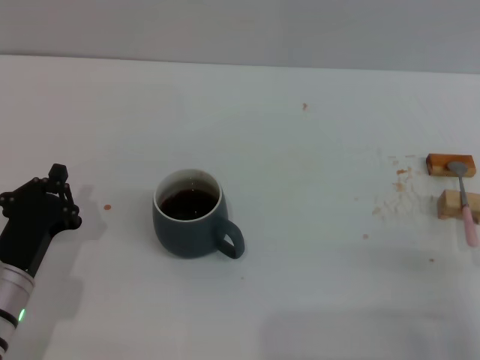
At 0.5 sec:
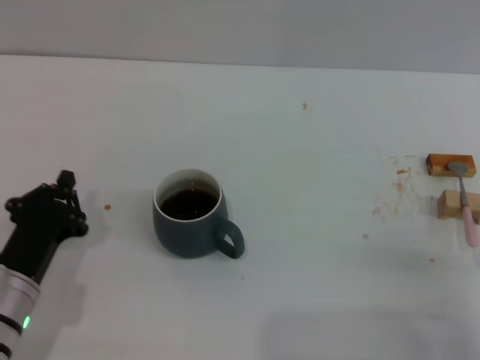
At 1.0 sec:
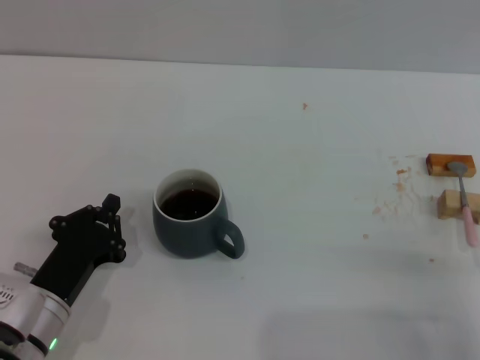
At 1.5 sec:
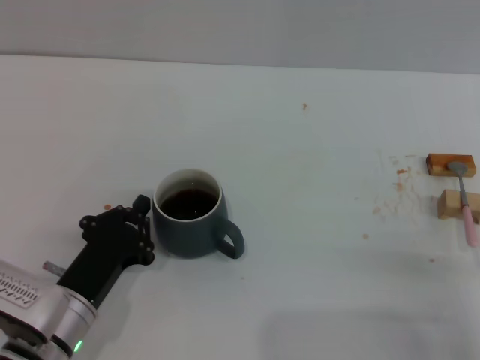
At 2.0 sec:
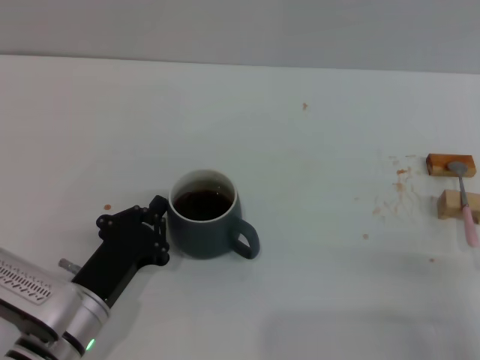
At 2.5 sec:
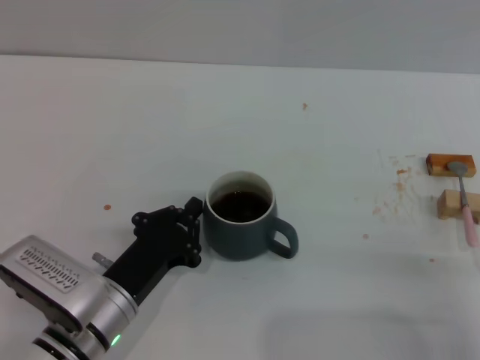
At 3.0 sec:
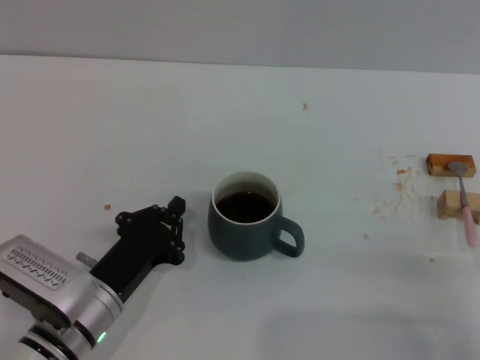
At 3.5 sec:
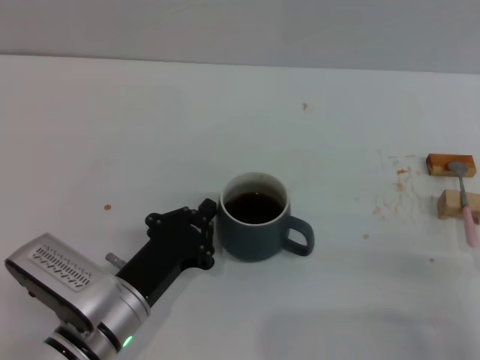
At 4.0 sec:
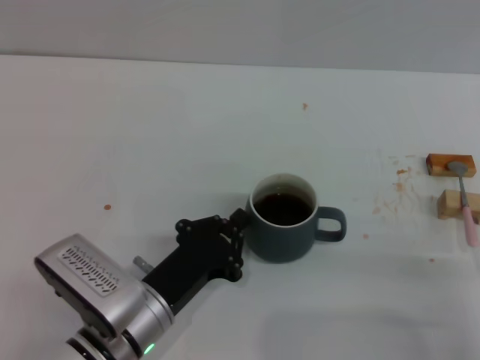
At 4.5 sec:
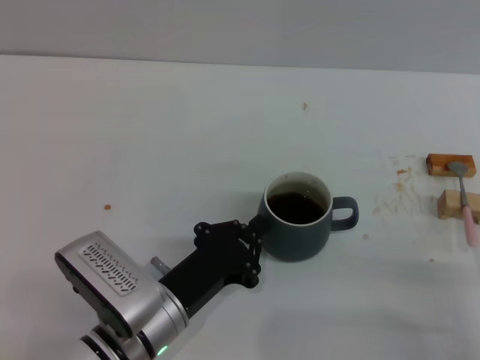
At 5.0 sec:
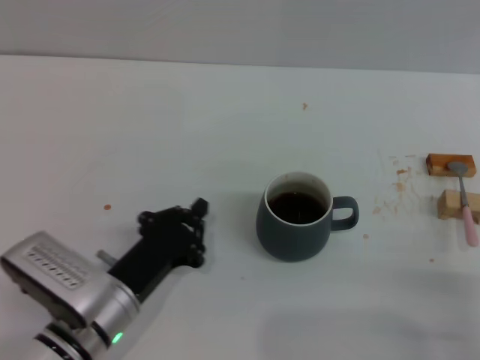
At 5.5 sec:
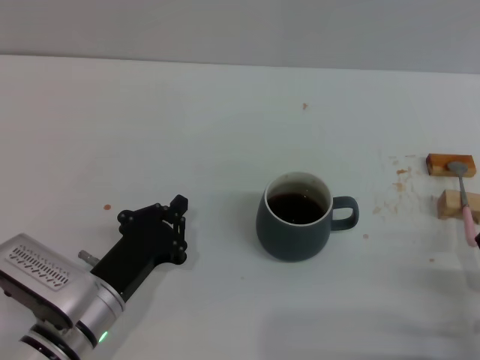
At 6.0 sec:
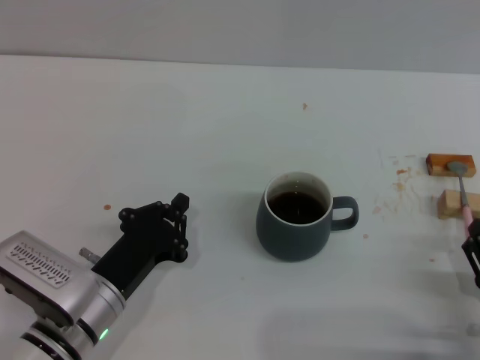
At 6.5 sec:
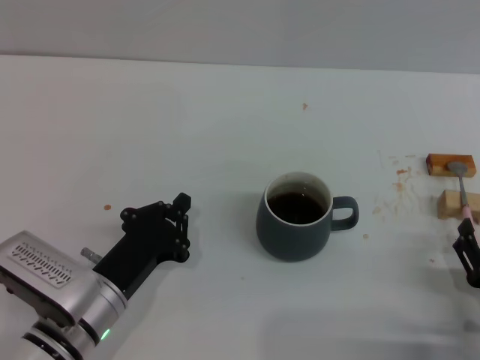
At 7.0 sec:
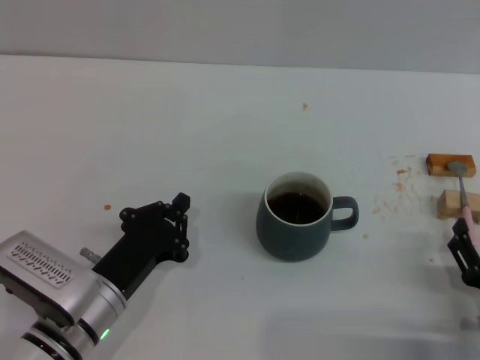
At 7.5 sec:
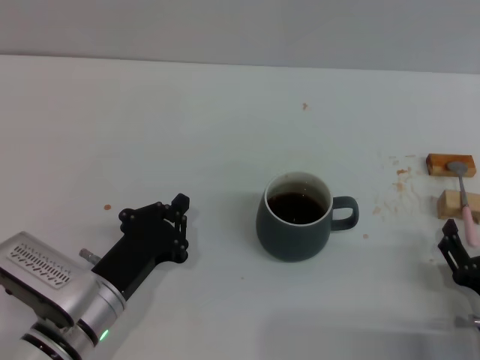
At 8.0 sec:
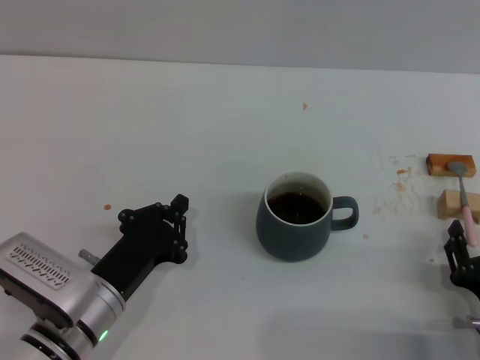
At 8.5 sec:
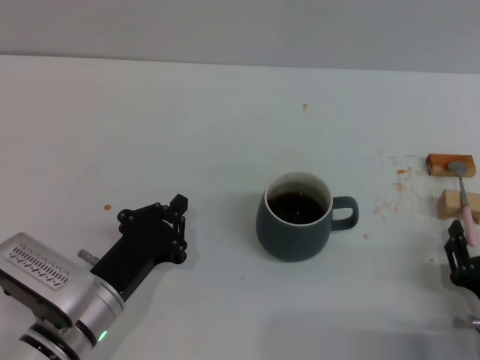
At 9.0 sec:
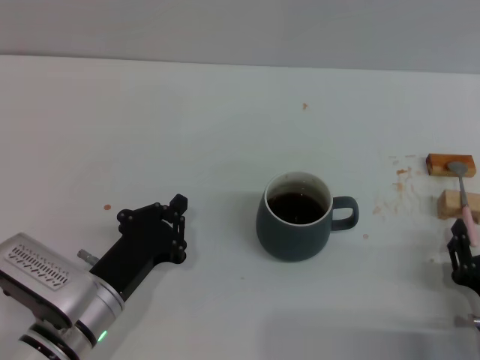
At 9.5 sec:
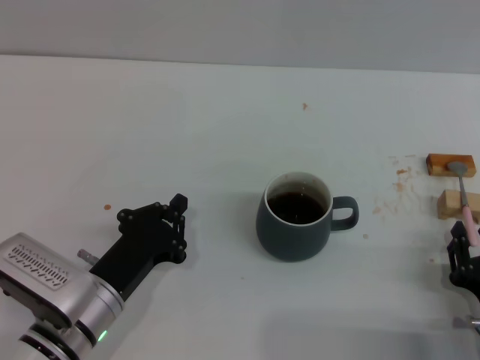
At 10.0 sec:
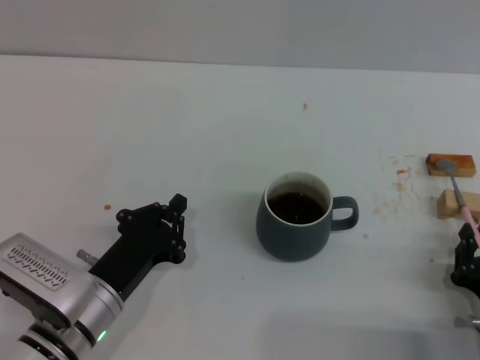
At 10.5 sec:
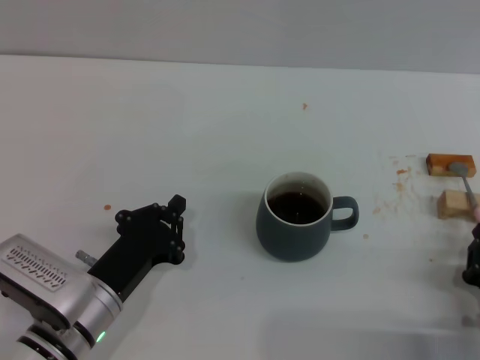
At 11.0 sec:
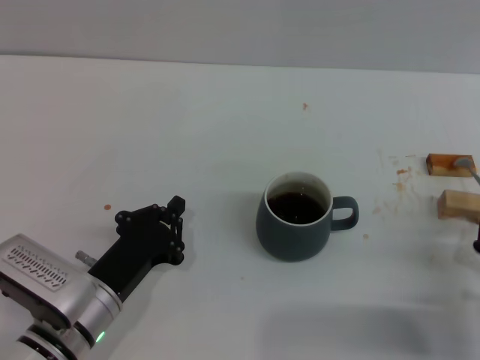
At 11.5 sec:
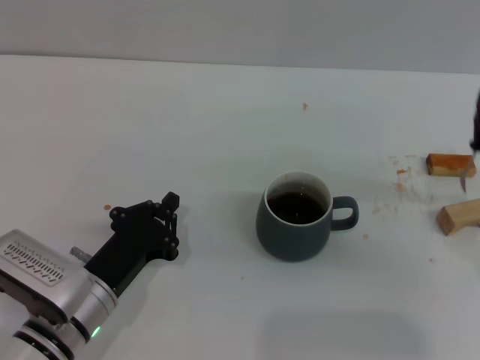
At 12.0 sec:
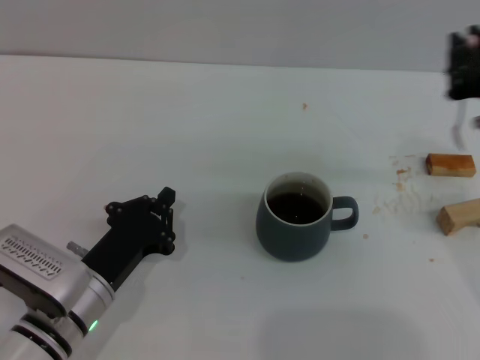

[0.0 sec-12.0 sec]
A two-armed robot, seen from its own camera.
Task of the whole recording: Move the grey cup to the center, lift the pink spoon, stir it three times in the cup, and put the spoon into the cup.
Step, 0.0 sec to 5.0 sec: Move the cup with coffee to the center of view with the left gripper.
Step, 5.5 sec to 11.0 sec: Pick up the spoon with the right gripper.
0.0 sec to 2.0 sec: The left gripper shifts approximately 5 cm to the right.
2.0 sec to 4.0 sec: The left gripper goes about 5 cm to the right.
6.0 sec to 8.0 sec: The grippers move only a little.
8.0 sec to 10.0 sec: The right gripper closes its fingers.
10.0 sec to 12.0 sec: The right gripper heads upward, covering about 25 cm.

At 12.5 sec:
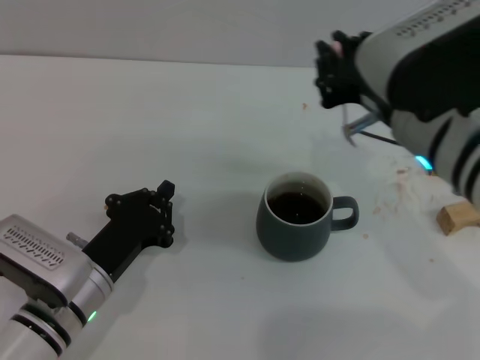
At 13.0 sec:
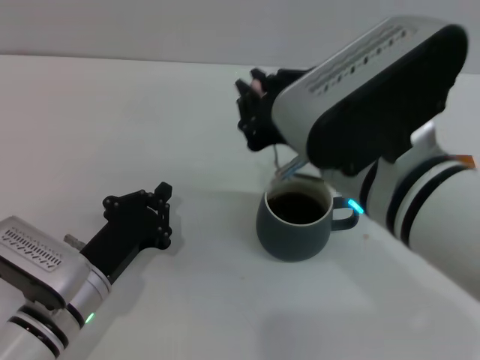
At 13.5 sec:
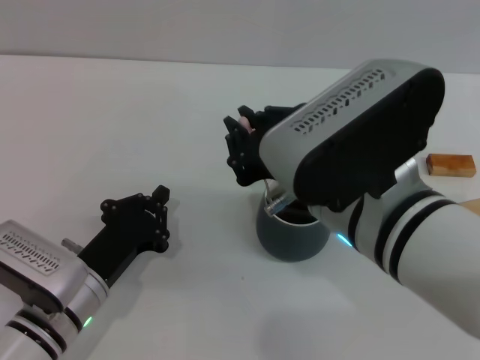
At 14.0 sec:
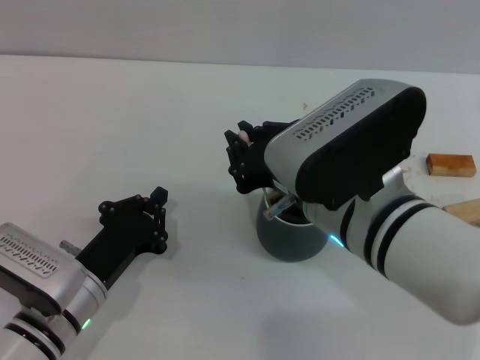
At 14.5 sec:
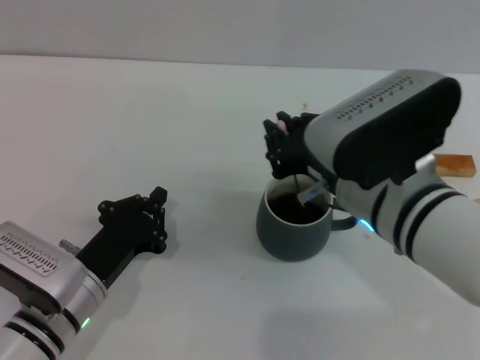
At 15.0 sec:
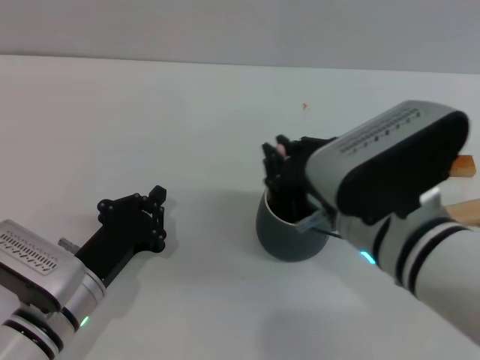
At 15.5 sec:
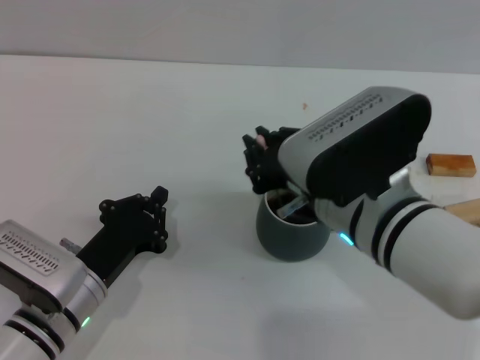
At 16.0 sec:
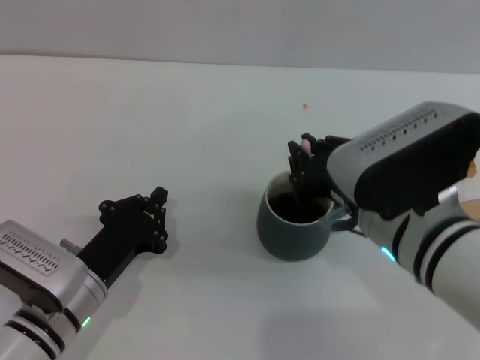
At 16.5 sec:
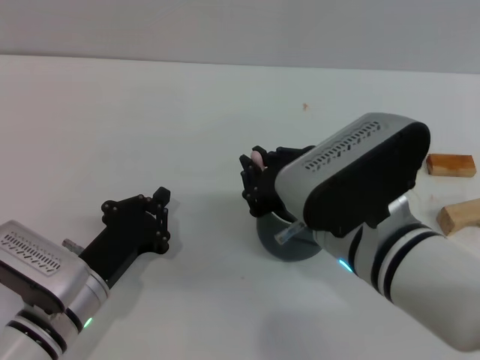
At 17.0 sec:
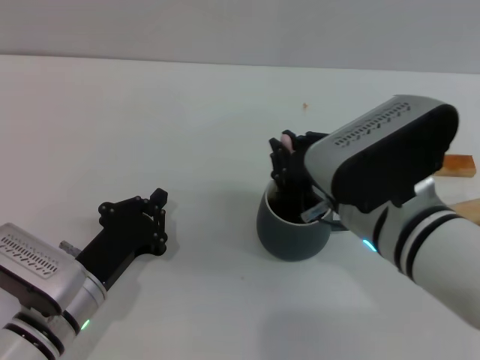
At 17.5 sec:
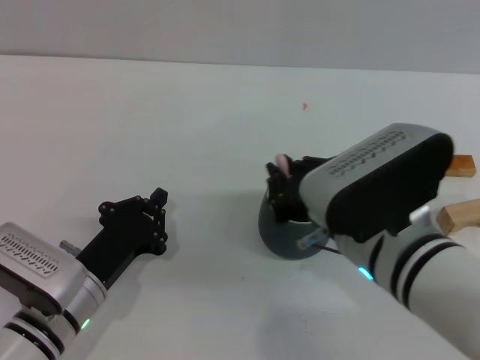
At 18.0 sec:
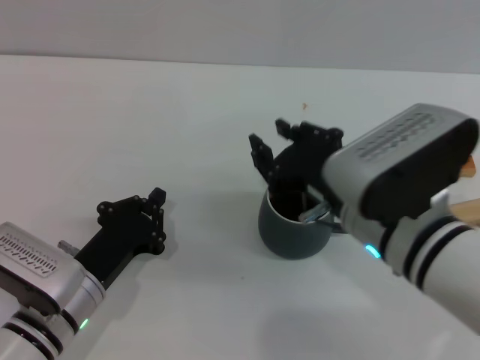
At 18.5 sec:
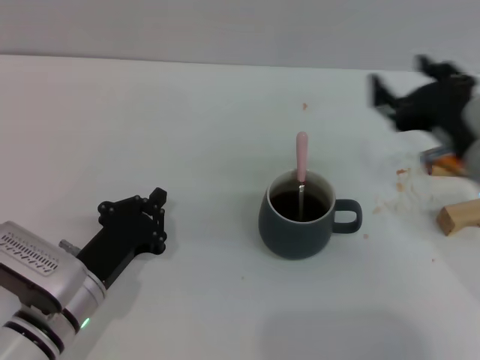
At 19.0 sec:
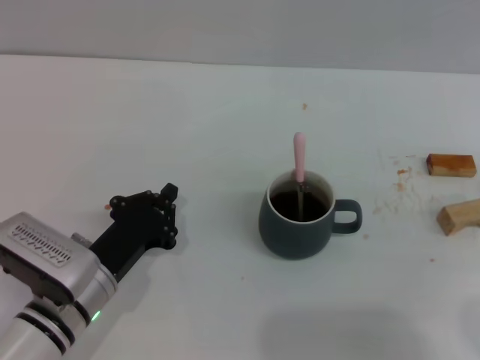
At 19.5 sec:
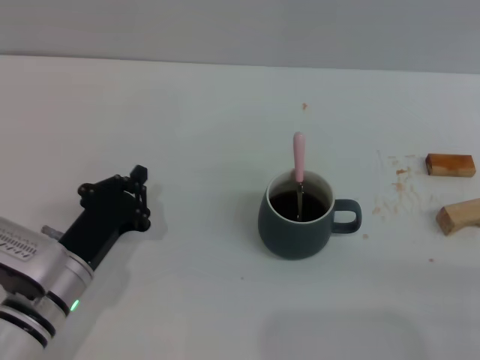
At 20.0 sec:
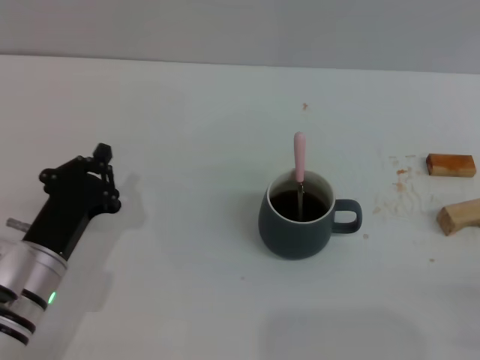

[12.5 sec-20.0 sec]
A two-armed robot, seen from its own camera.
Task of the whole recording: Move the grey cup to the center, lift the pink spoon, stir it three times in the cup, and put the spoon into the cup.
Step, 12.5 sec to 18.0 sec: Stir the coffee in the cup with the right gripper.
12.5 sec to 14.5 sec: The right gripper shifts about 5 cm downward.
16.5 sec to 18.0 sec: The grippers stay close to where they were, moving slightly.
18.0 sec to 20.0 sec: The right gripper moves to the right, backward and downward, some 25 cm, and opens its fingers.

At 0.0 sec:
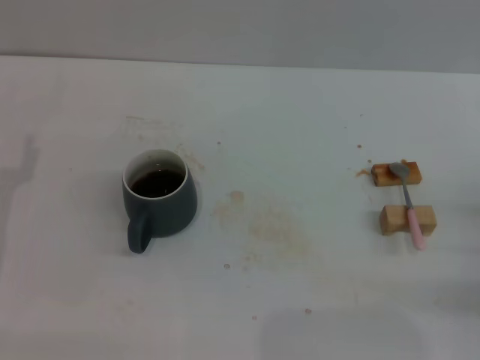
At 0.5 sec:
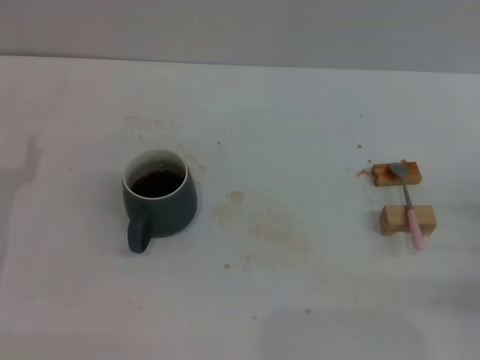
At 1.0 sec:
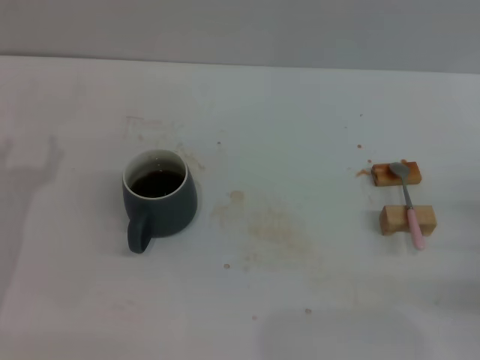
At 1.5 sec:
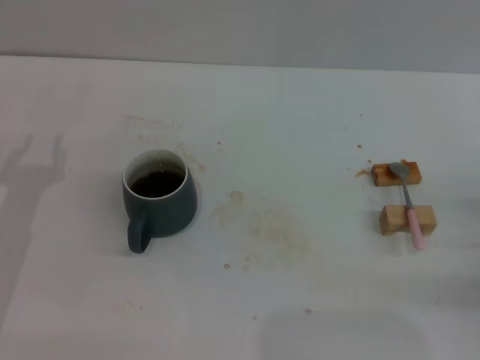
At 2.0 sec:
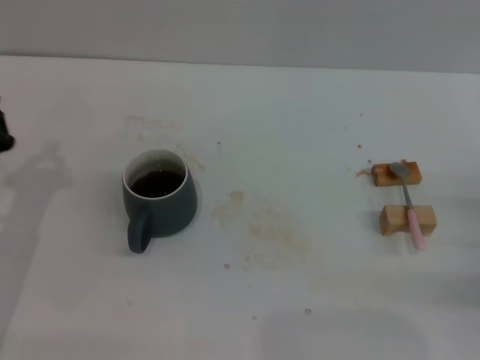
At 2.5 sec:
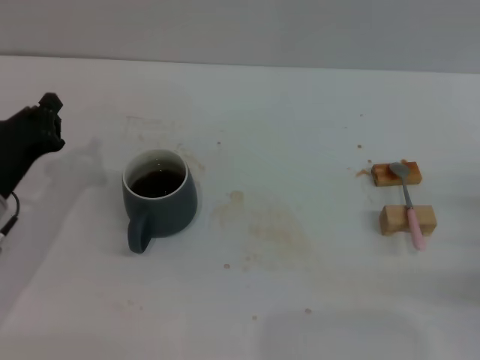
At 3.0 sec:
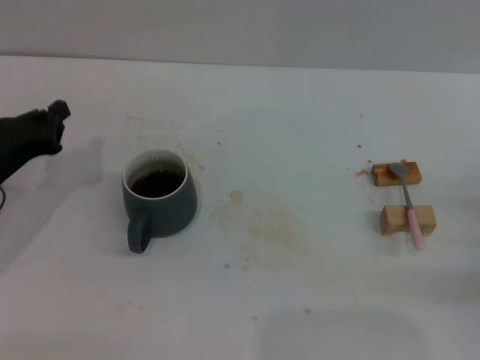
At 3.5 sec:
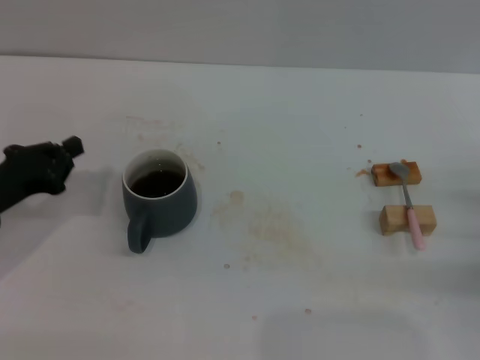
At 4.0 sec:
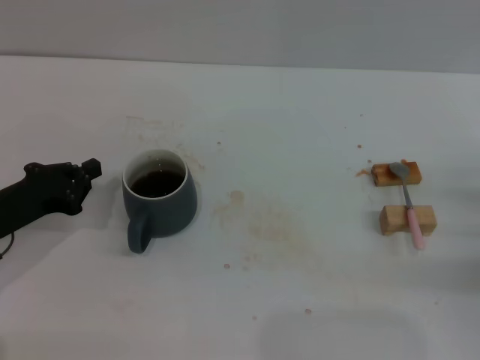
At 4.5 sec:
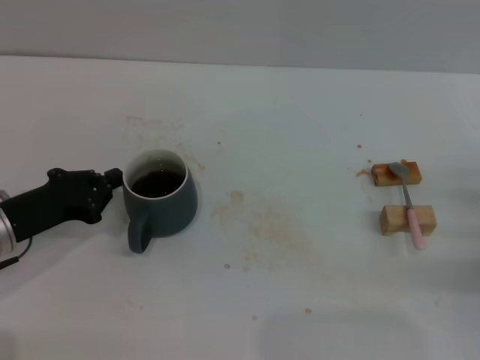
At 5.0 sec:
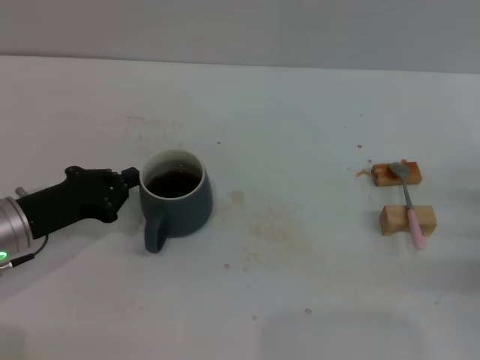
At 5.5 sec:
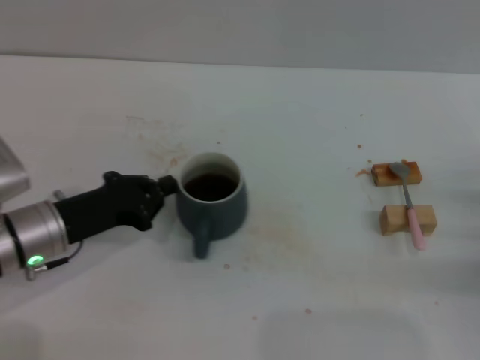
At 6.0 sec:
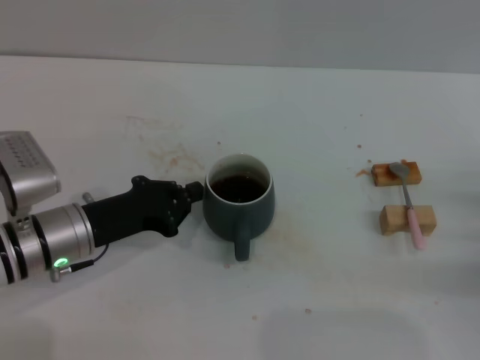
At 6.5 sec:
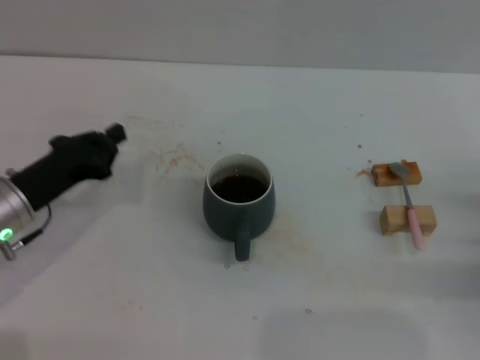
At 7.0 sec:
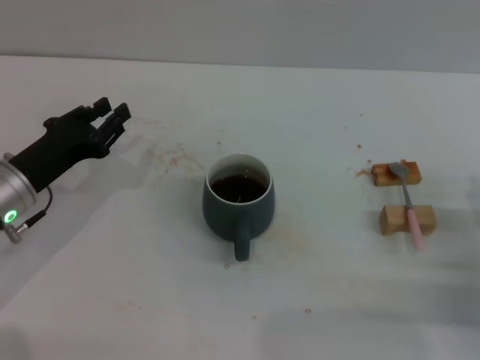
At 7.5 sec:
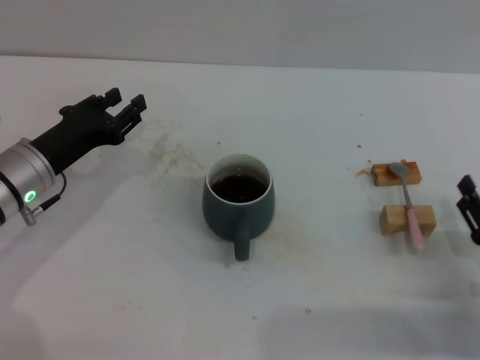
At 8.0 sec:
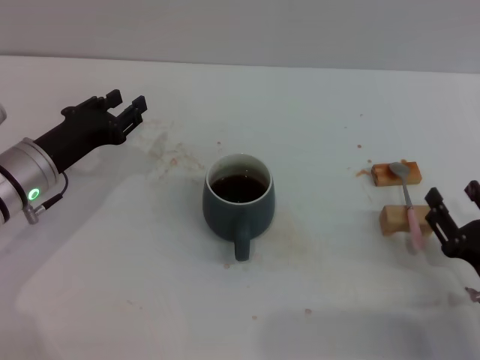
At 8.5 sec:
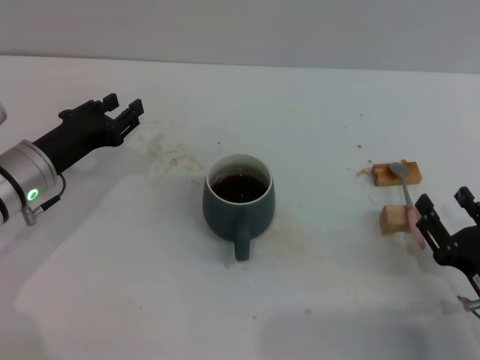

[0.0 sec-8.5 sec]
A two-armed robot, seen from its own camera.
Task of the whole recording: Move the grey cup to the center, lift the pink spoon, stir it three times in the cup, and put the spoon into the cup.
Step, 0.0 sec to 6.0 sec: Move the cup with coffee to the center of view with the left gripper.
6.5 sec to 8.5 sec: The right gripper heads to the left and backward, covering roughly 10 cm, while the left gripper opens its fingers.
